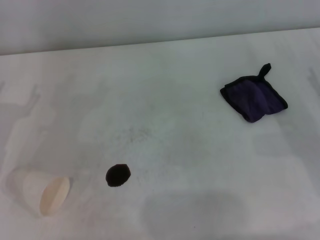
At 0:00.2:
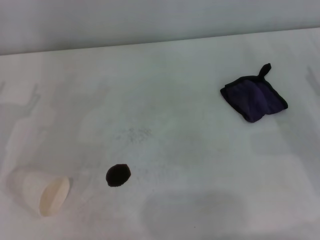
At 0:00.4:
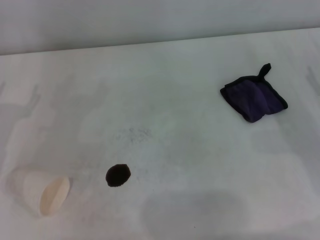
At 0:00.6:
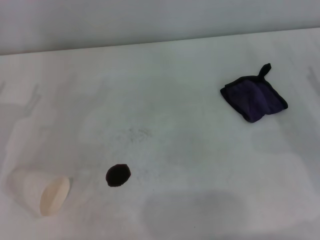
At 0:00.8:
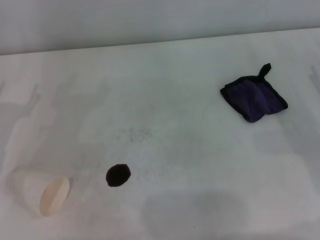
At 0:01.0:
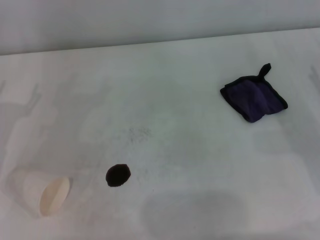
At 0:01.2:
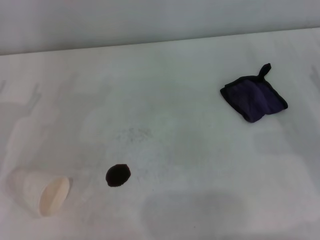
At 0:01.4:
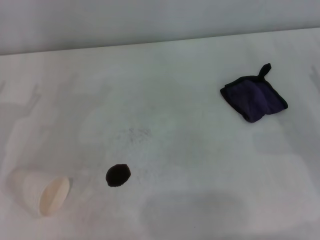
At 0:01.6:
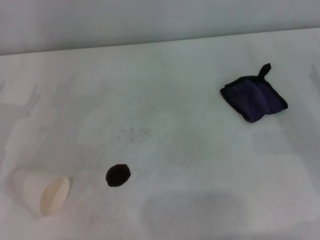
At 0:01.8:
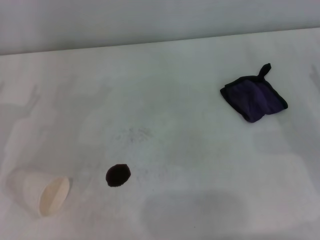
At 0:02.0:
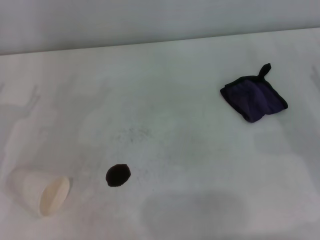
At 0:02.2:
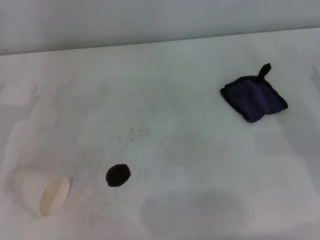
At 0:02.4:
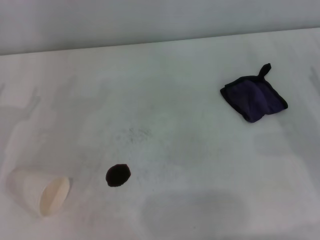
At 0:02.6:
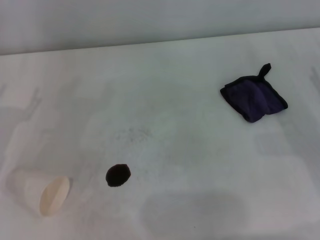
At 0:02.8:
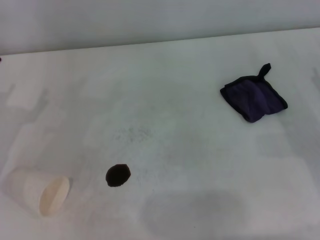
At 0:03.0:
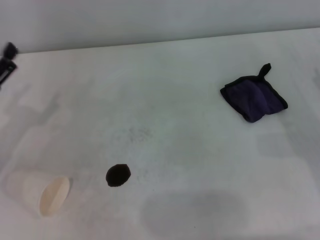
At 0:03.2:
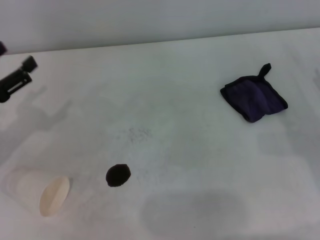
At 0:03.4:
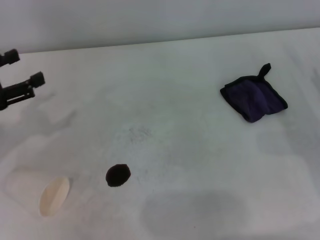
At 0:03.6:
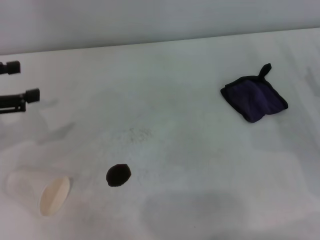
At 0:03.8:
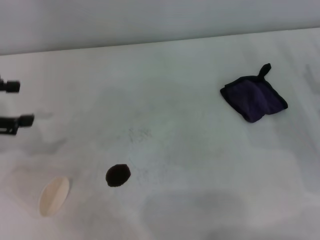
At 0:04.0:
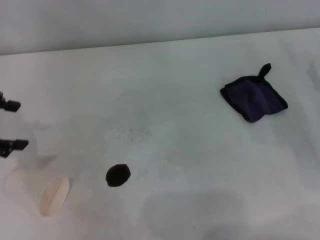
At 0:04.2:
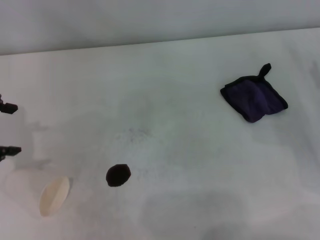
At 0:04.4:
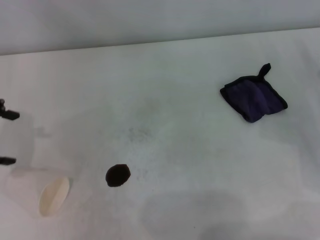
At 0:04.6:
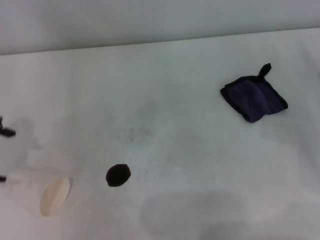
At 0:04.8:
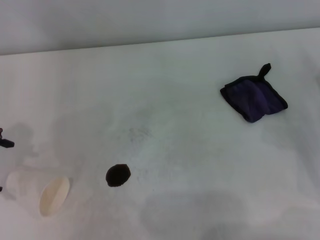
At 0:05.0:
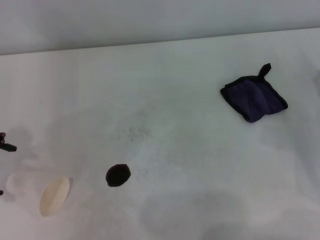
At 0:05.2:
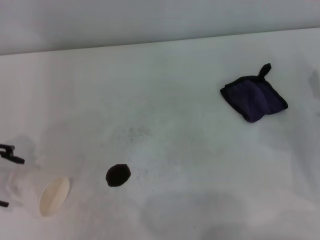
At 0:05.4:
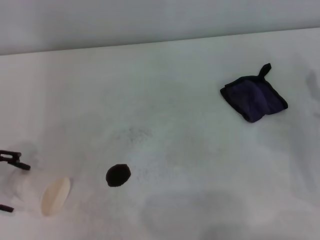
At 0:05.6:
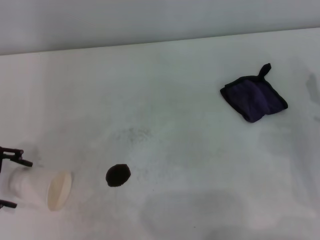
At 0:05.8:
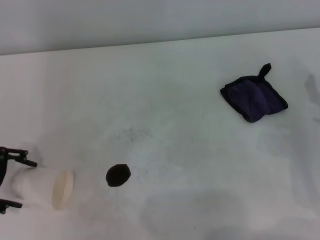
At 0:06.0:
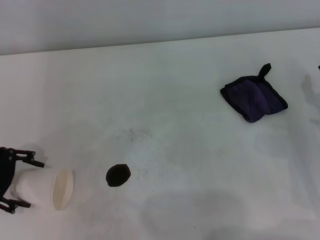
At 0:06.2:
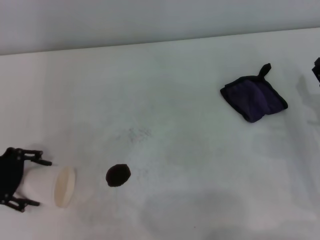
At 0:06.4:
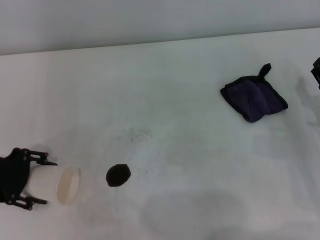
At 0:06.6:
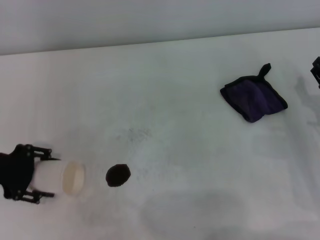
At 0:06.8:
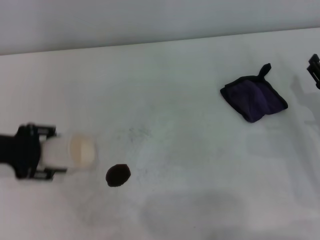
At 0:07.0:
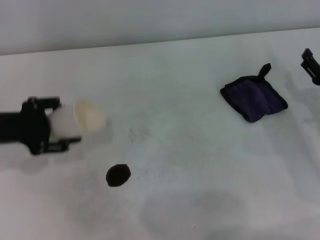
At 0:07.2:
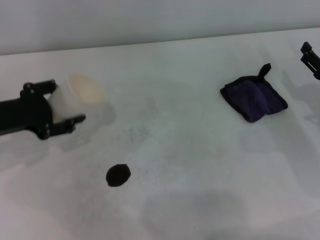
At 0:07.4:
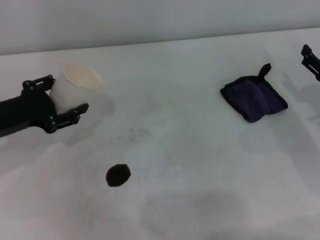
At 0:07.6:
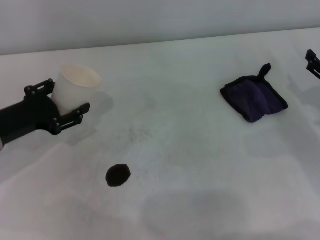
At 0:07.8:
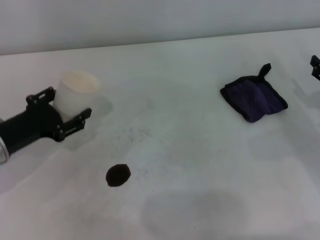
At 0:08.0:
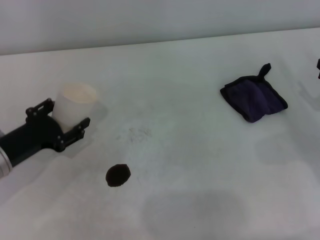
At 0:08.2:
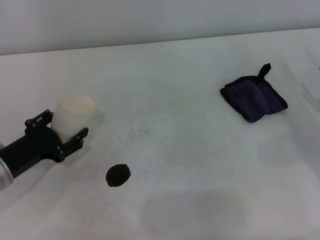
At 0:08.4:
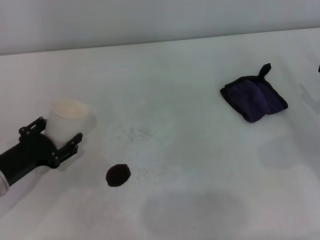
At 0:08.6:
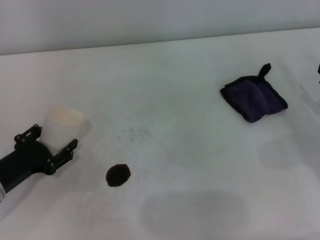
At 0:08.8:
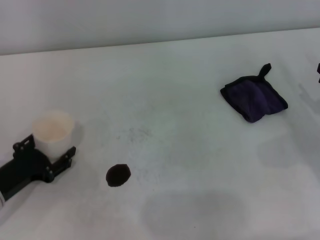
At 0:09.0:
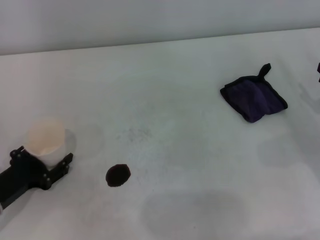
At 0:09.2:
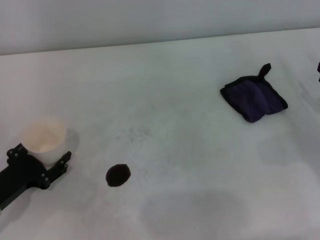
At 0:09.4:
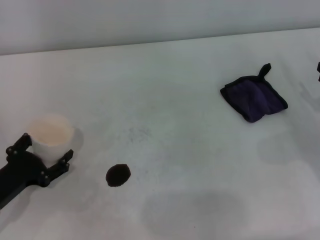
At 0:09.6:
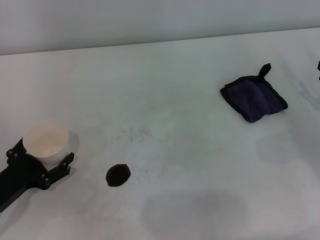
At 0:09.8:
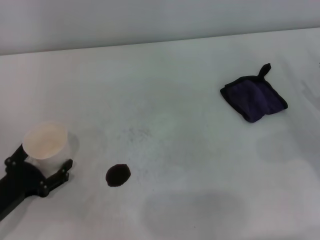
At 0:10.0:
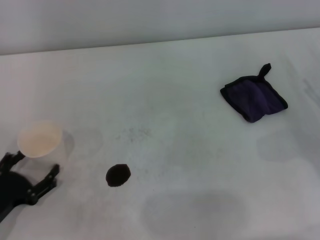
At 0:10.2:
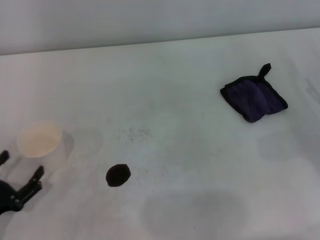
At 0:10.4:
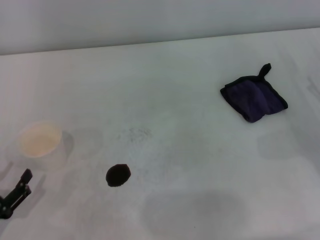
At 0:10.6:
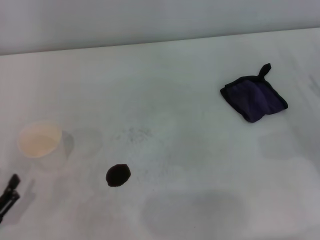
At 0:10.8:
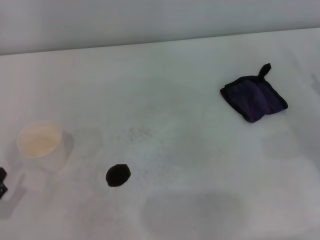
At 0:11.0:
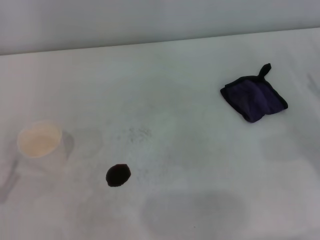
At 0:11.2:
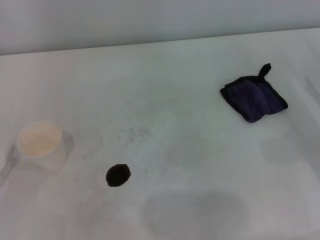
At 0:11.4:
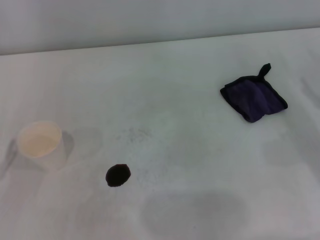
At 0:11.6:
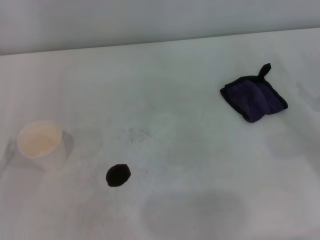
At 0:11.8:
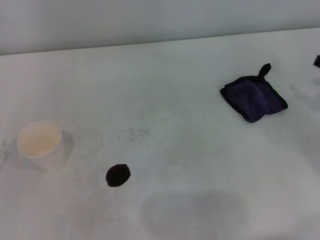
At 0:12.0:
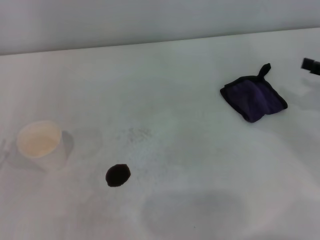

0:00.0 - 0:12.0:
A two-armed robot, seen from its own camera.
Step, 0:00.0 - 0:06.2: Grasp the paper cup with the left gripper.
Step, 0:06.4 - 0:09.8: Stand the paper cup upright with the left gripper.
0:00.0 - 0:01.6: Both grippers stay put.
0:03.0 - 0:04.4: The left gripper is displaced upward by approximately 15 cm.
0:04.4 - 0:06.0: The left gripper goes approximately 10 cm downward.
0:06.0 - 0:07.6: The left gripper ends up some 5 cm from where it was, and closes up.
0:07.6 - 0:09.0: The left gripper shifts some 10 cm backward and downward.
0:09.0 - 0:10.4: The left gripper travels backward by roughly 10 cm, and opens up.

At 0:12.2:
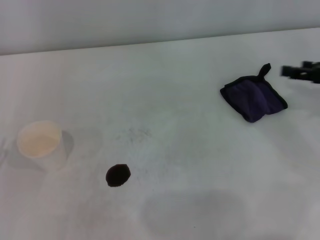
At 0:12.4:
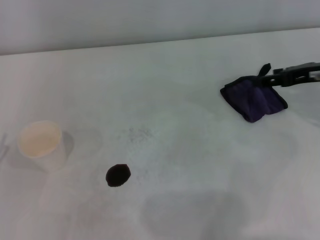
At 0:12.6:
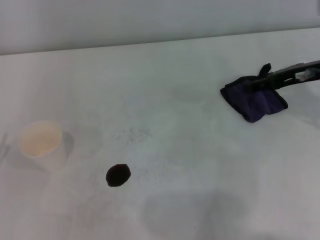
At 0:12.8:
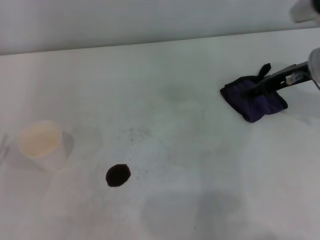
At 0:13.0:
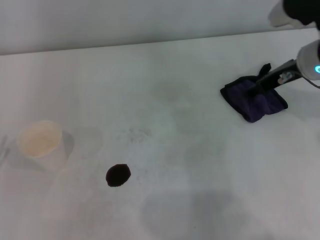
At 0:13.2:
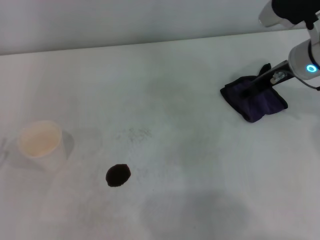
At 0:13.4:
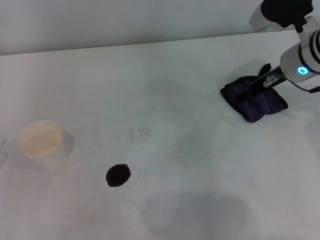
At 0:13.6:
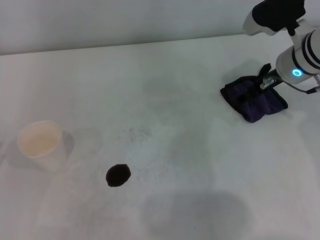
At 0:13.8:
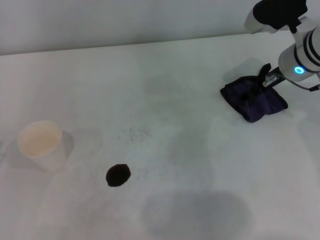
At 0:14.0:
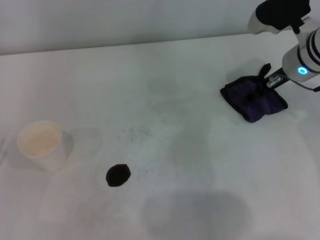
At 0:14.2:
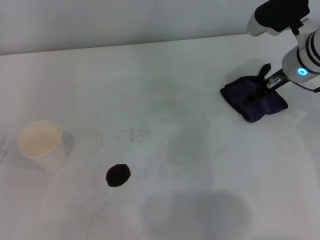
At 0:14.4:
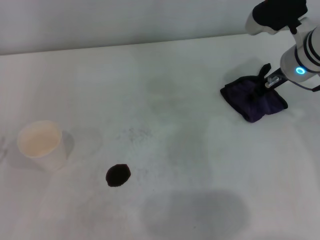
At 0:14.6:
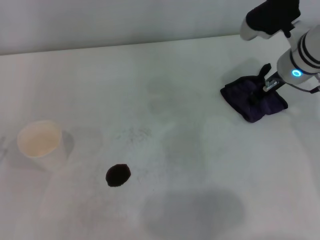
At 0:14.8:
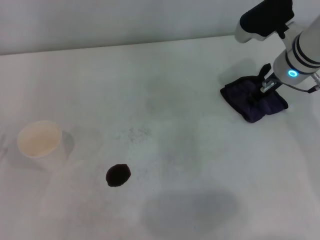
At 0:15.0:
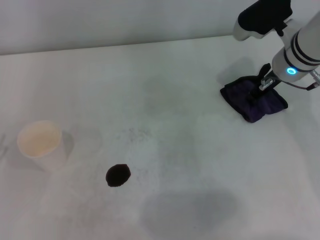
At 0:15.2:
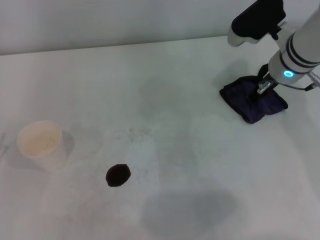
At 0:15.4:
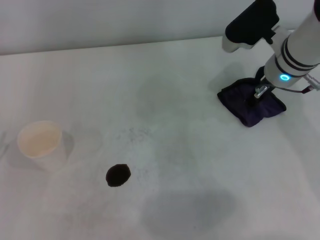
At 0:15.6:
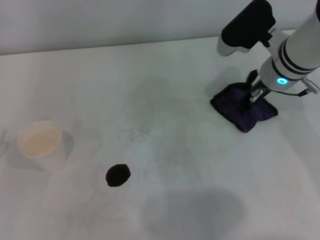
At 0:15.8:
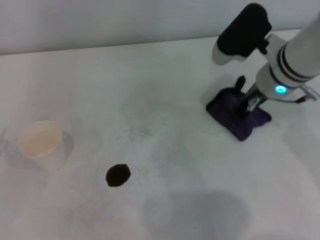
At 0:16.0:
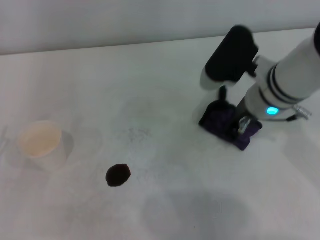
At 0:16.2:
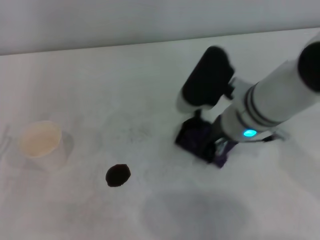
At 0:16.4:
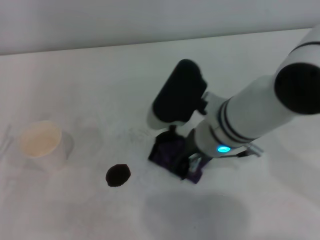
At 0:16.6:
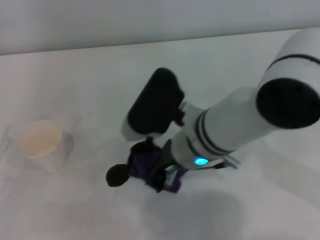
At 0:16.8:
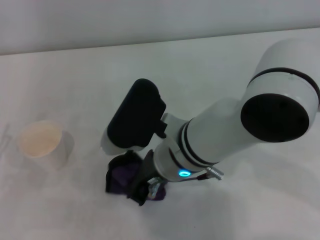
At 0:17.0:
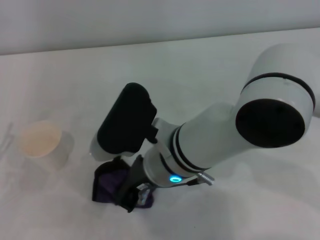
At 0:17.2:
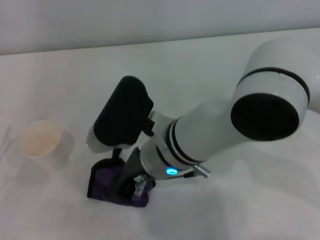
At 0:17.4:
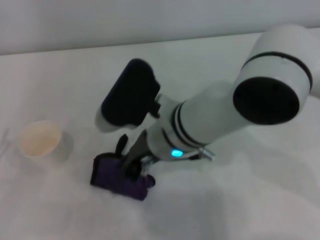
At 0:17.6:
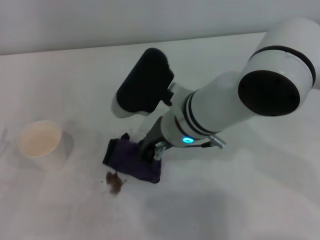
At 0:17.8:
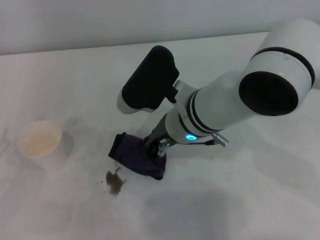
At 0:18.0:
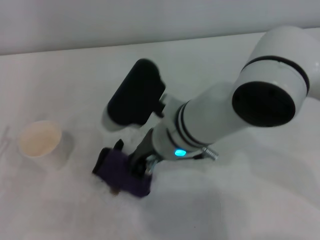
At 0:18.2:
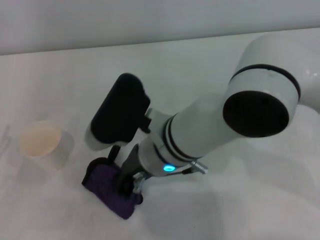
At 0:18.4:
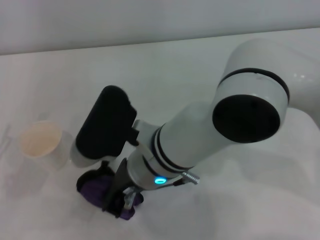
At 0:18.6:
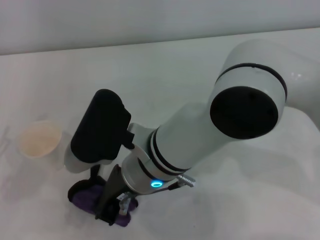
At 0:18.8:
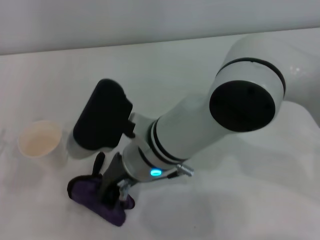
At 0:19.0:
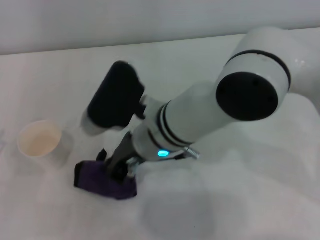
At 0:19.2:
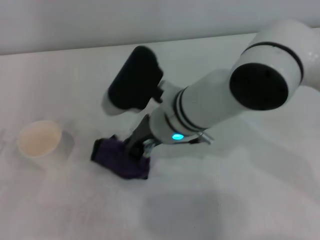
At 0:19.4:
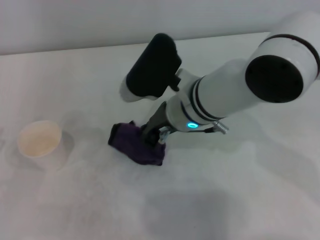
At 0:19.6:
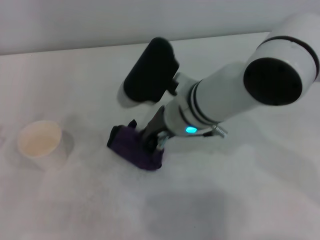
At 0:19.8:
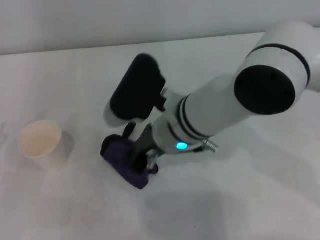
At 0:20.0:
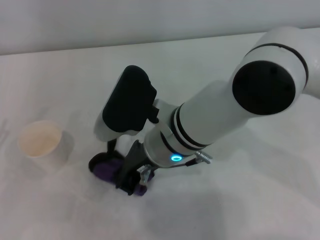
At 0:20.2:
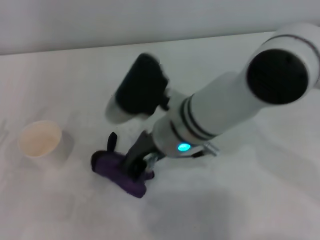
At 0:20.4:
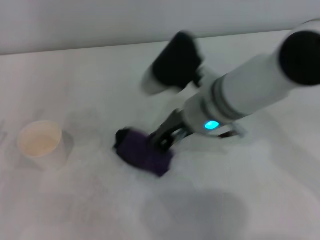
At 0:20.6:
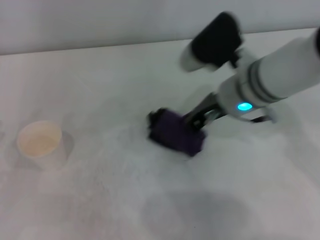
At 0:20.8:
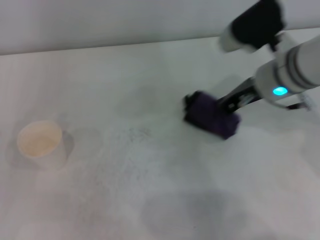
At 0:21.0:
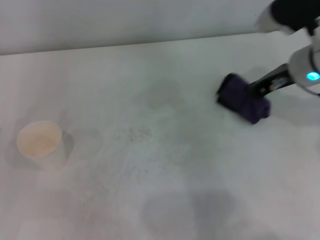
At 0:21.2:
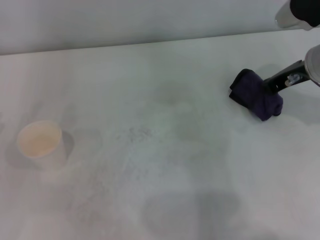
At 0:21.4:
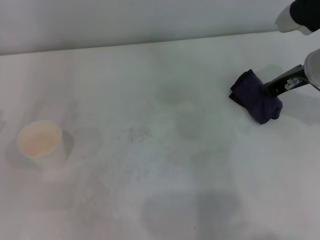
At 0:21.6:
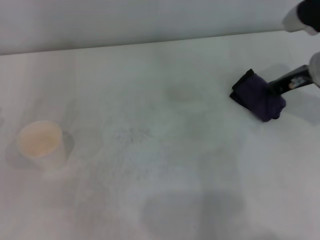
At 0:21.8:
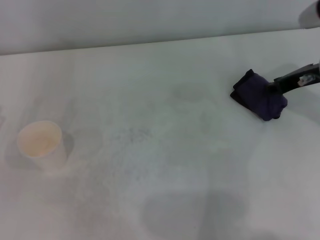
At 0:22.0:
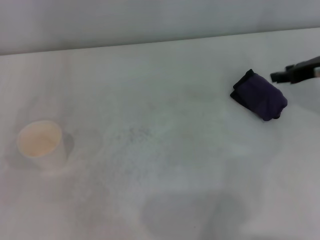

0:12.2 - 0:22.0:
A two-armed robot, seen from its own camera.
Step, 0:12.2 - 0:15.2: Grasp the rag with the right gripper.
Step, 0:15.4 - 0:20.6: Wipe the stains off the table with the right gripper.
Step, 0:20.8 - 0:21.6: Place the rag on the table with the right gripper.
0:12.2 - 0:13.6: The right gripper shifts some 15 cm to the left and forward.
0:13.6 - 0:15.0: The right gripper closes up.
0:15.0 - 0:16.4: The right gripper shifts roughly 15 cm to the left and backward.
0:19.2 - 0:20.6: The right gripper heads to the right, covering roughly 10 cm.
0:20.6 - 0:22.0: The right gripper goes some 20 cm to the right.
